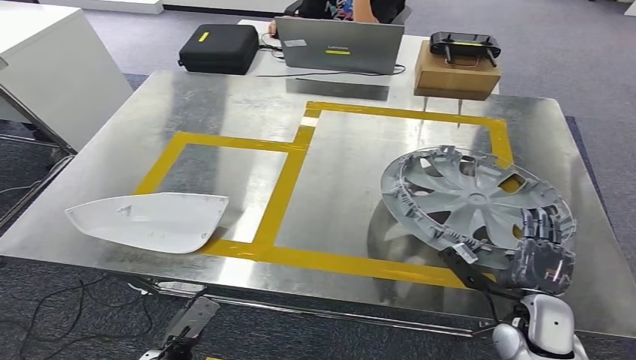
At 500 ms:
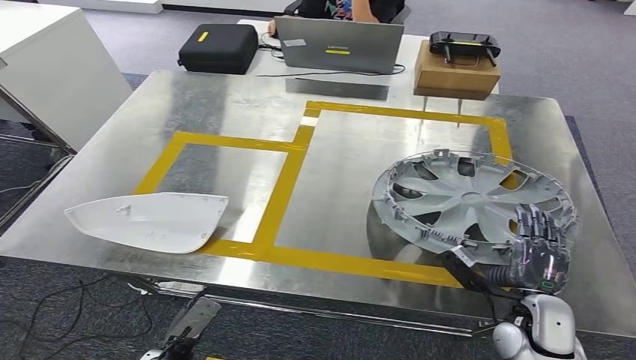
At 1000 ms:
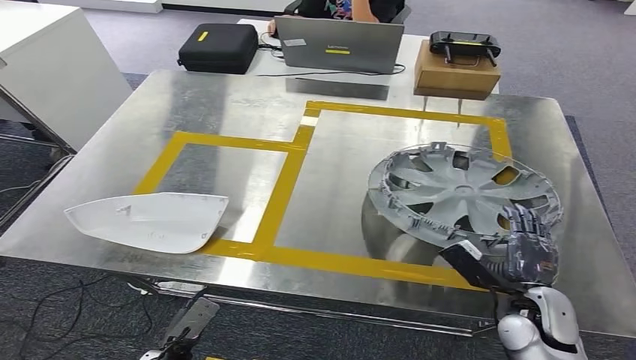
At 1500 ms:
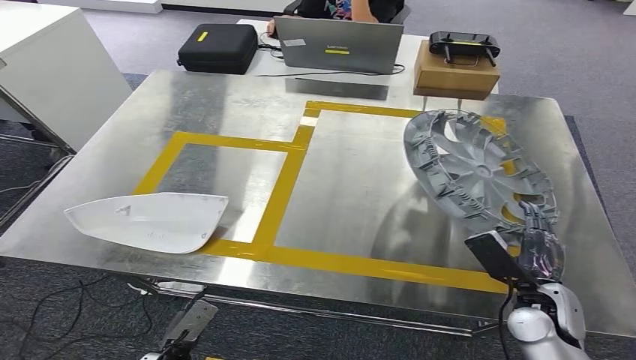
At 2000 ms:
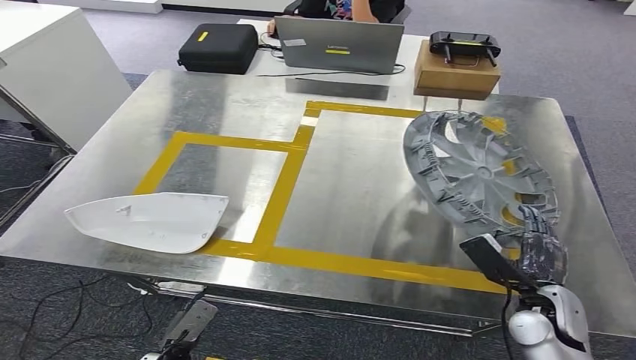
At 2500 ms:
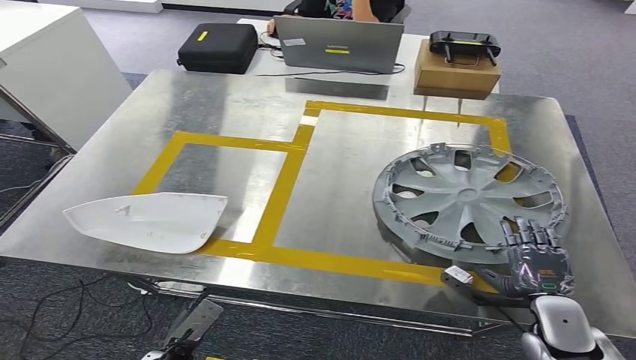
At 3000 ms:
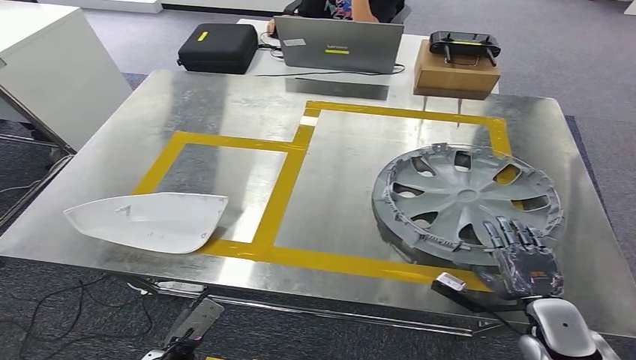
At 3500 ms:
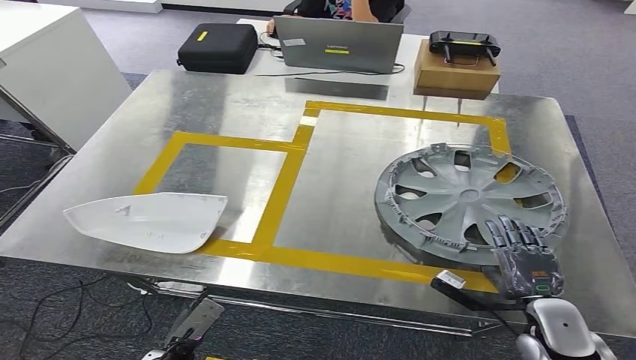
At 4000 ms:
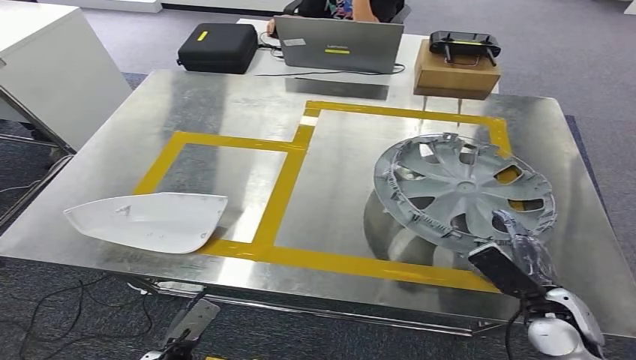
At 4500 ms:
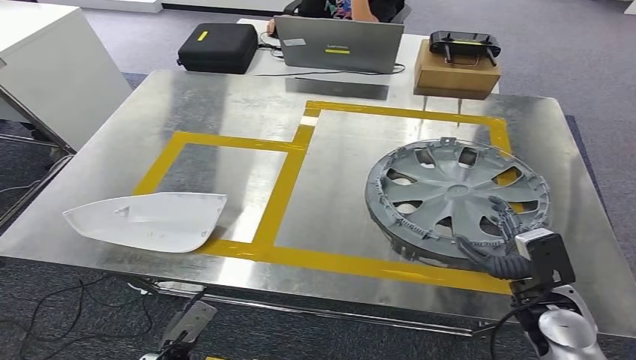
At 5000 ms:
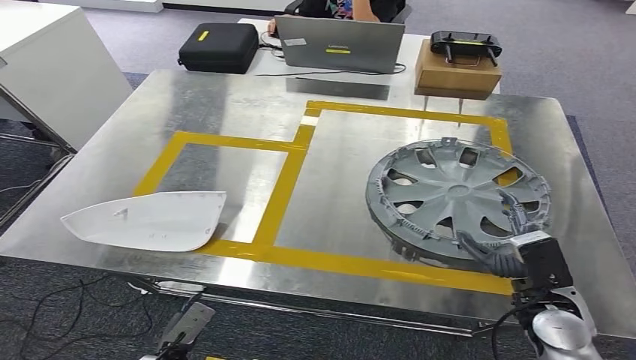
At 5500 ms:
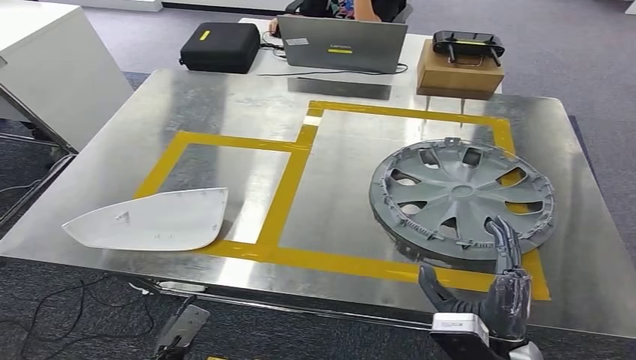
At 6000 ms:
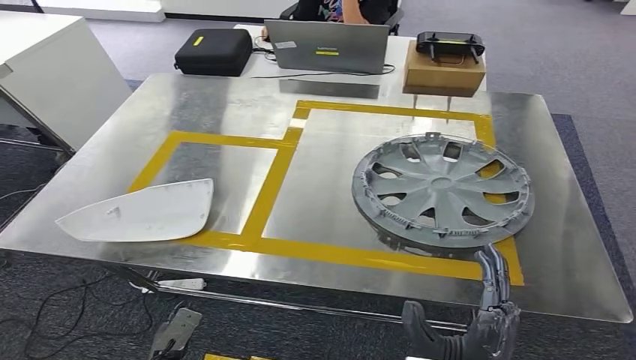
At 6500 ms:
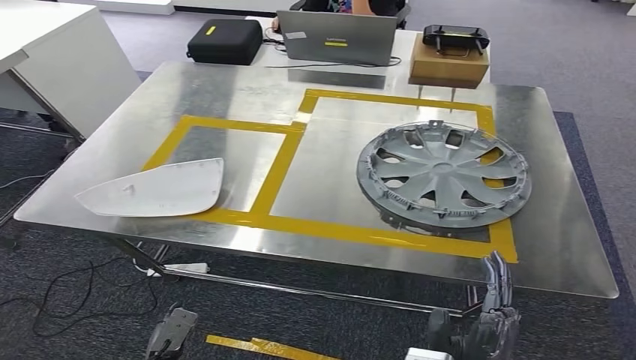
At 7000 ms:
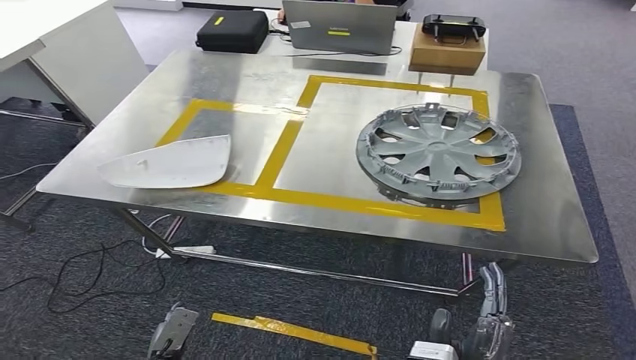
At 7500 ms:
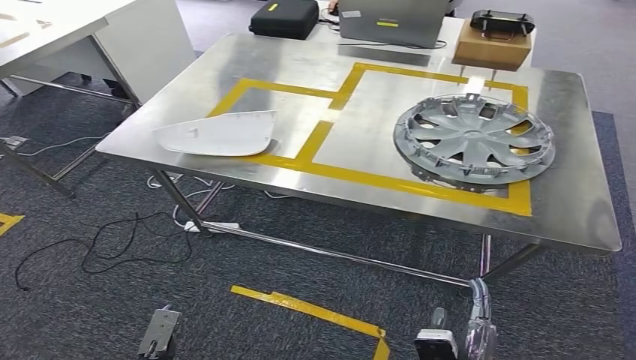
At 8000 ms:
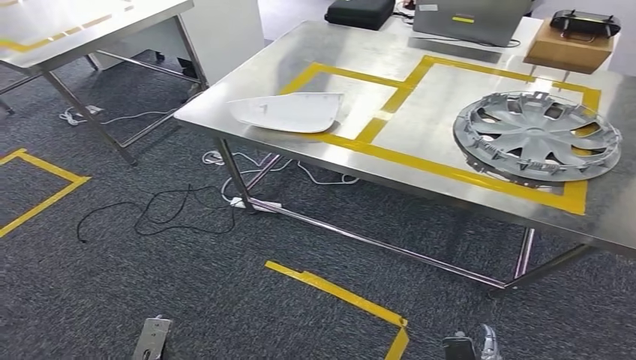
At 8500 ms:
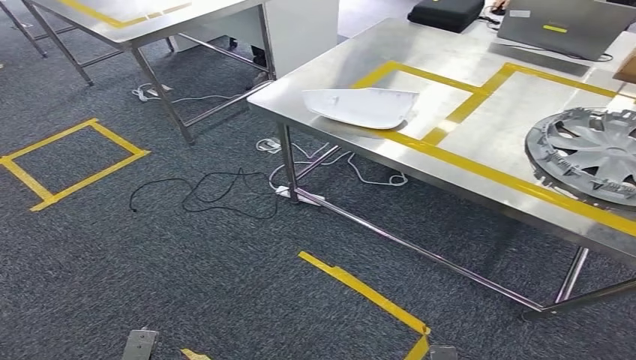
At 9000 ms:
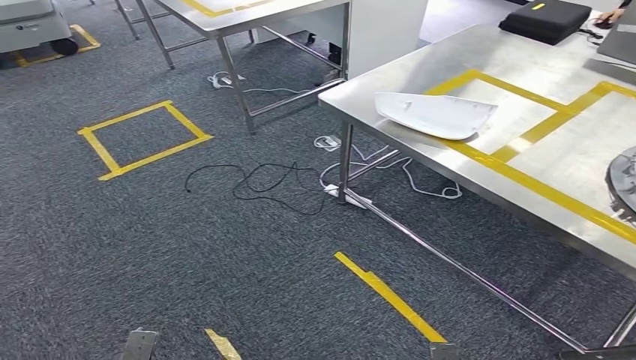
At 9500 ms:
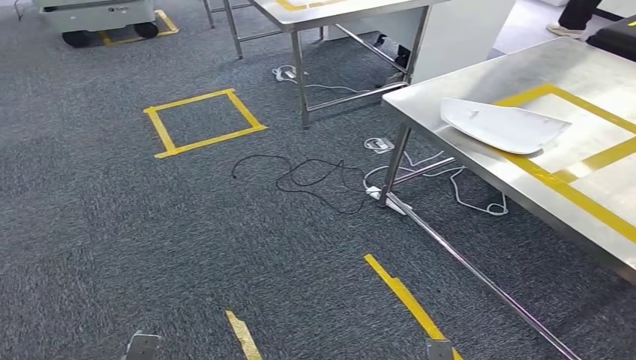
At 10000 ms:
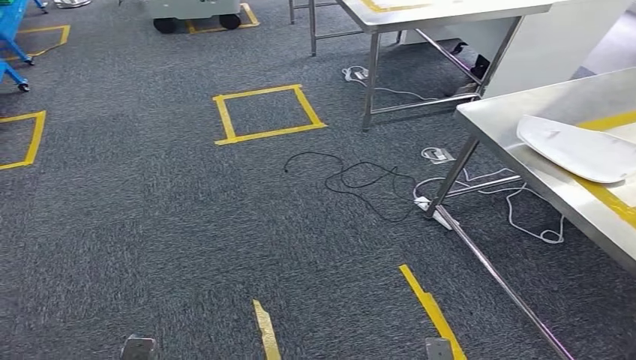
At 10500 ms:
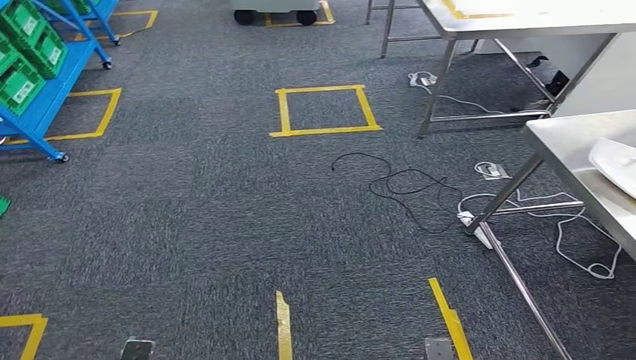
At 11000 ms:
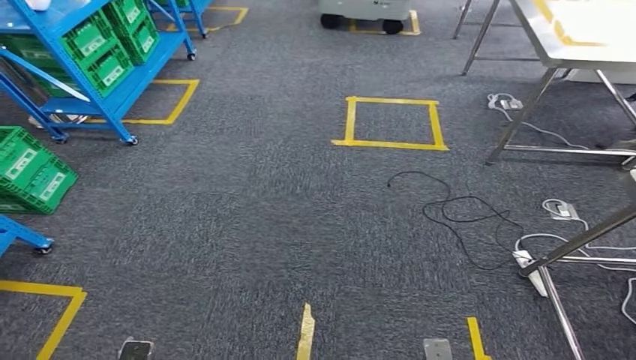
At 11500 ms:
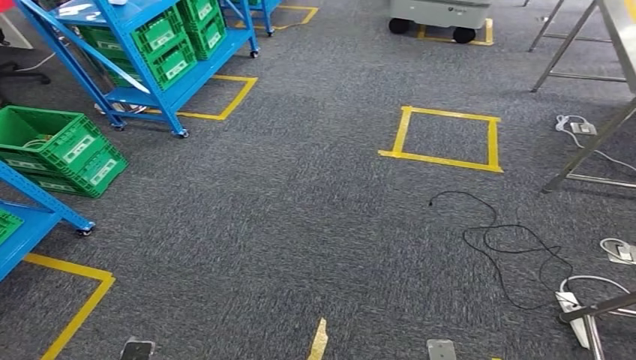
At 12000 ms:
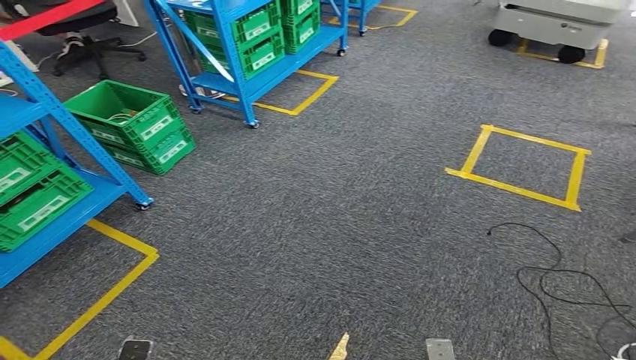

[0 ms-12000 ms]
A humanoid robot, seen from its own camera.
Step, 0 ms to 5500 ms: Insert the small component into the corresponding slot on the workbench.

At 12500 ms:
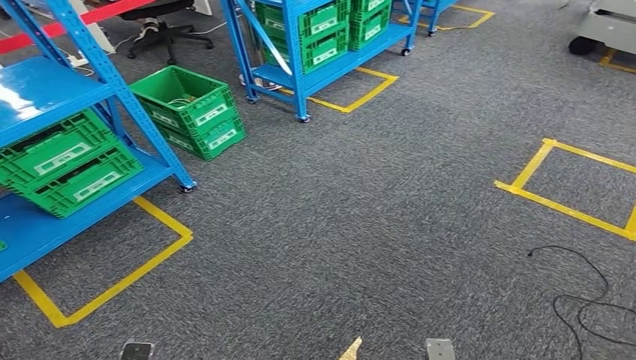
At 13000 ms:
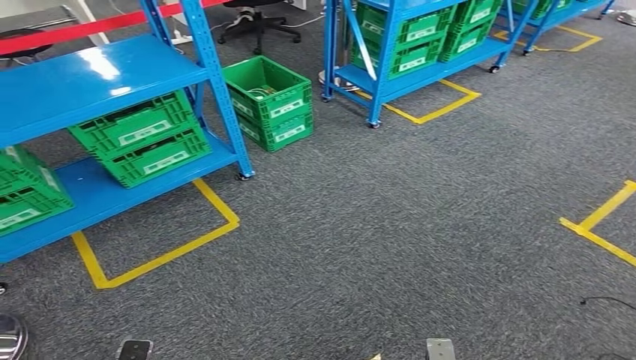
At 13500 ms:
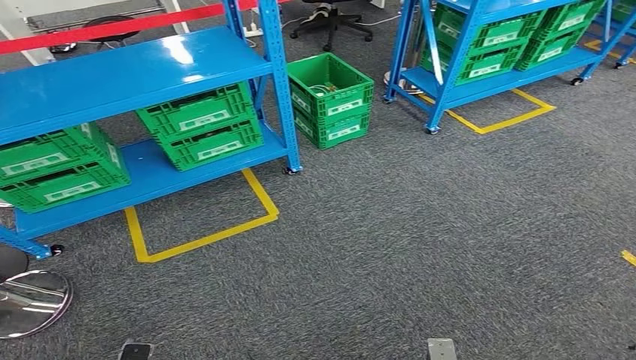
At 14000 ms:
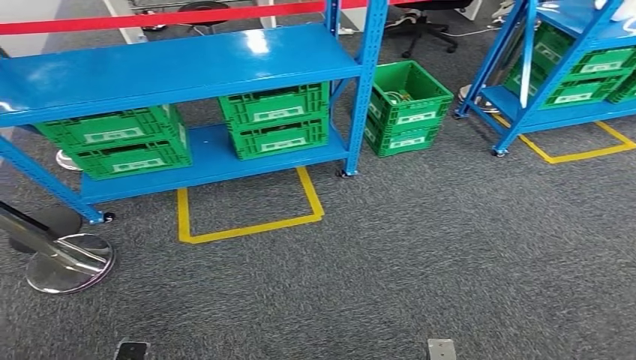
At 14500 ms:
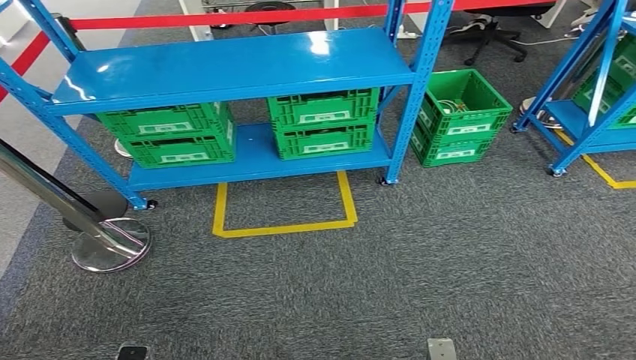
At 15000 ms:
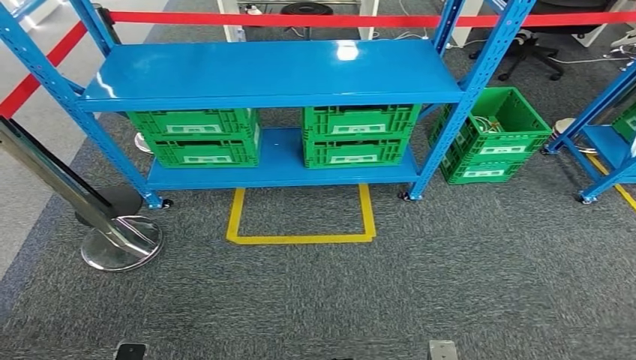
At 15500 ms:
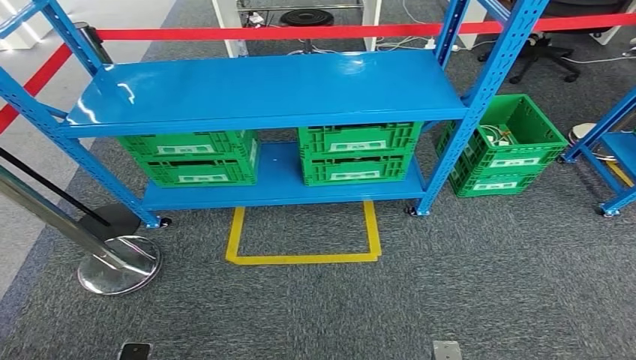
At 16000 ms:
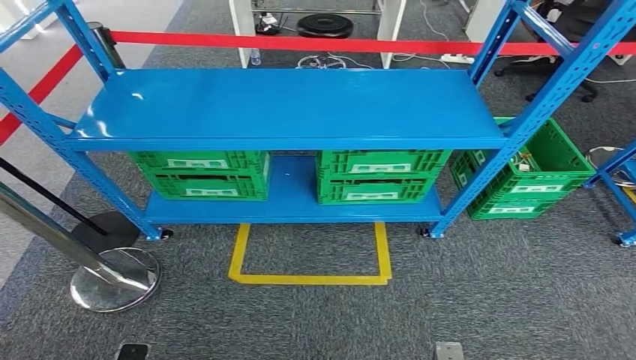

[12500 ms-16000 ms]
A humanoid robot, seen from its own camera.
Step, 12500 ms to 16000 ms: Return to the initial position at the workbench.

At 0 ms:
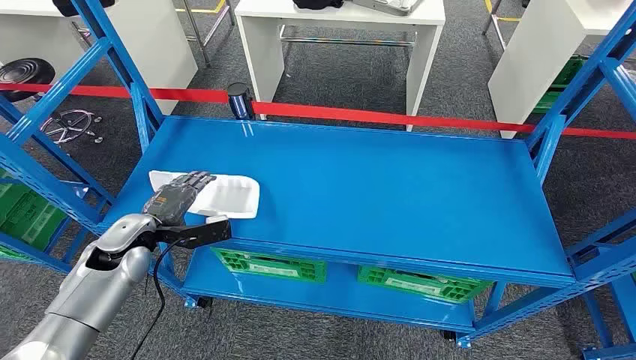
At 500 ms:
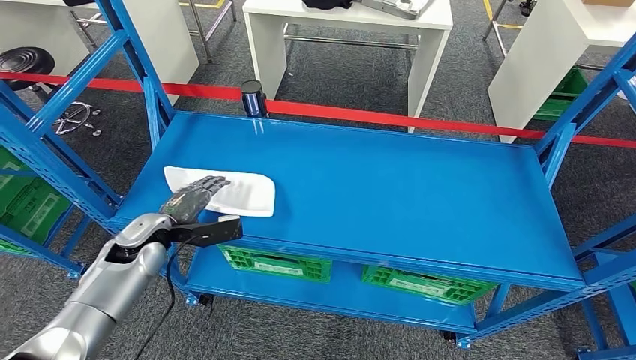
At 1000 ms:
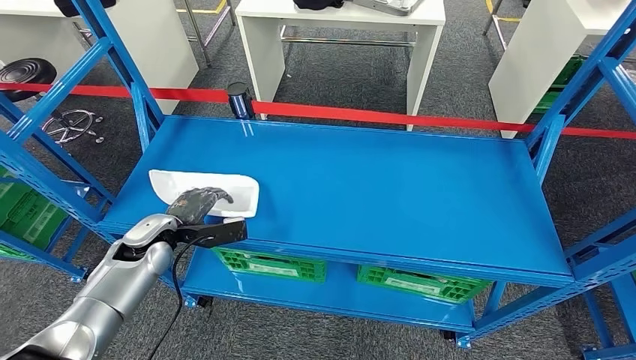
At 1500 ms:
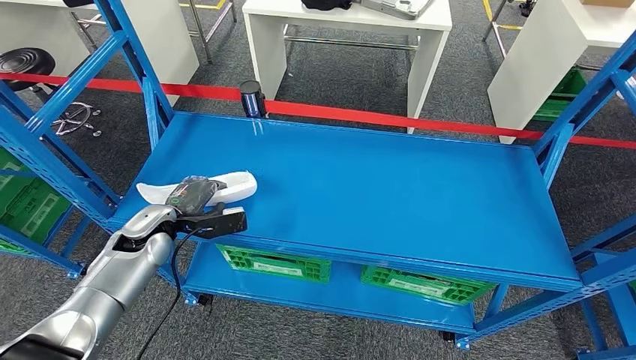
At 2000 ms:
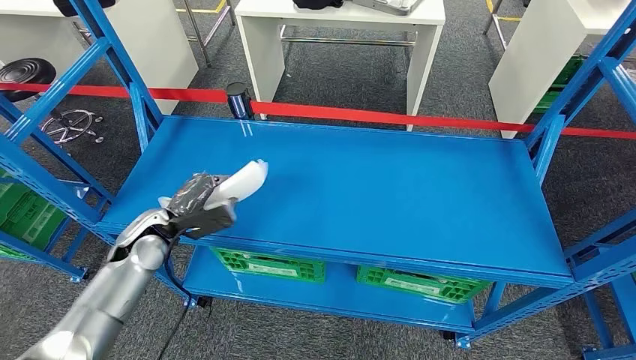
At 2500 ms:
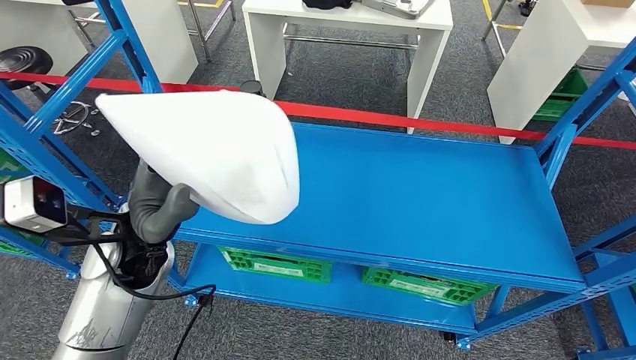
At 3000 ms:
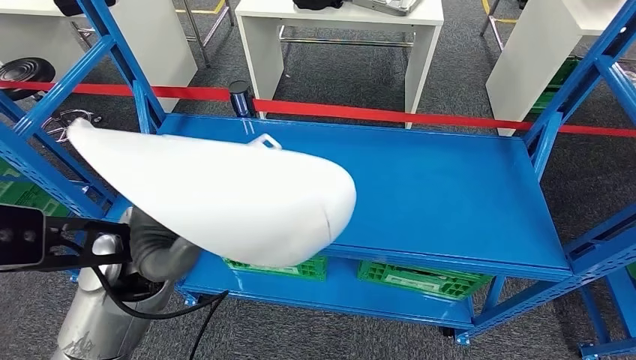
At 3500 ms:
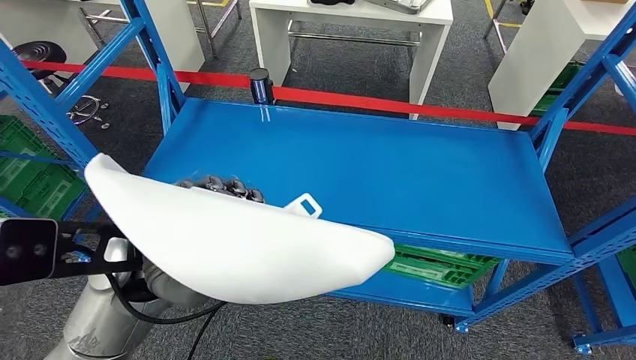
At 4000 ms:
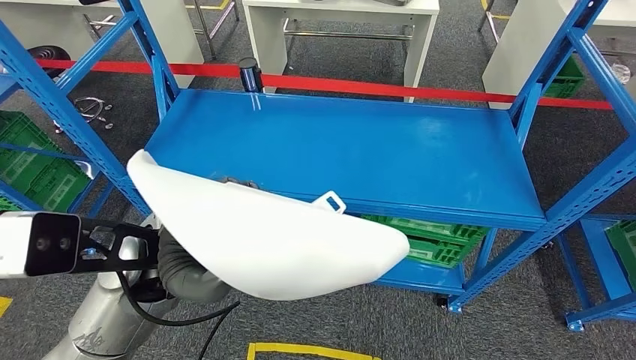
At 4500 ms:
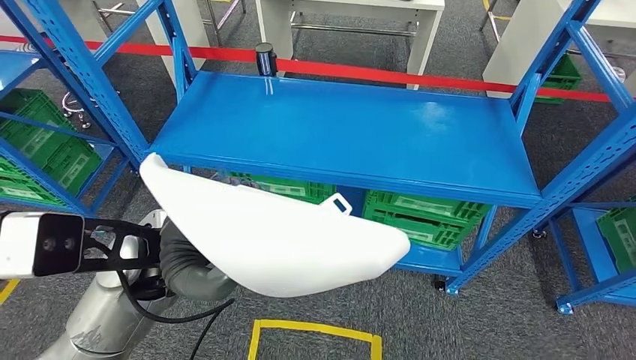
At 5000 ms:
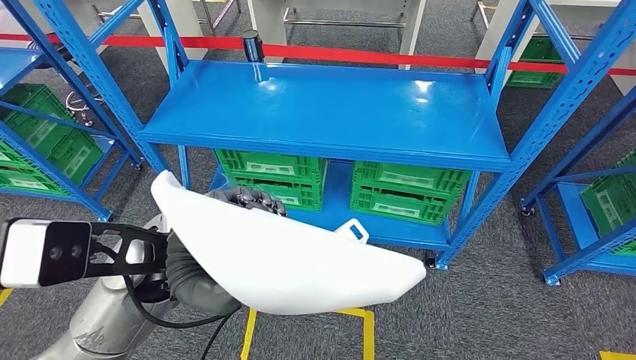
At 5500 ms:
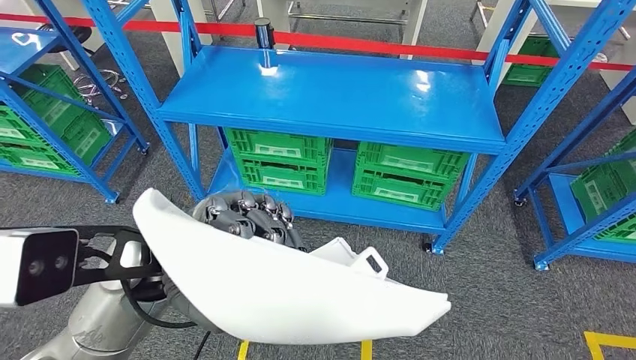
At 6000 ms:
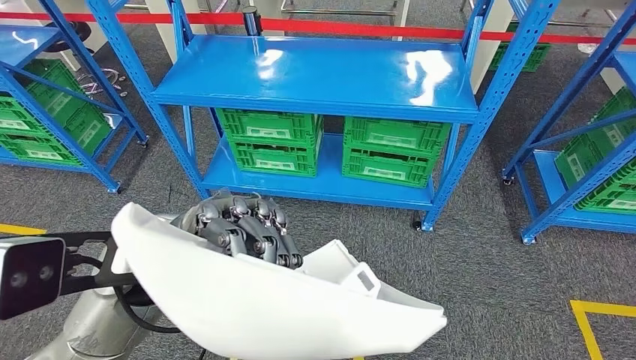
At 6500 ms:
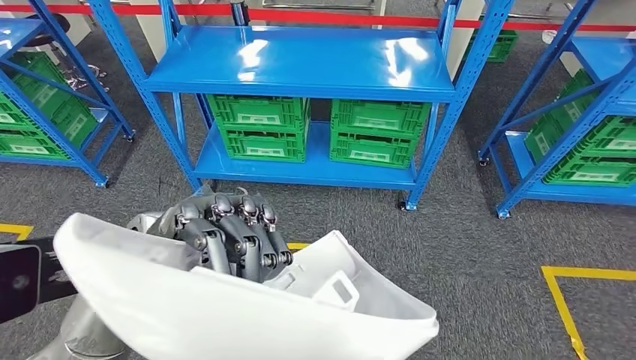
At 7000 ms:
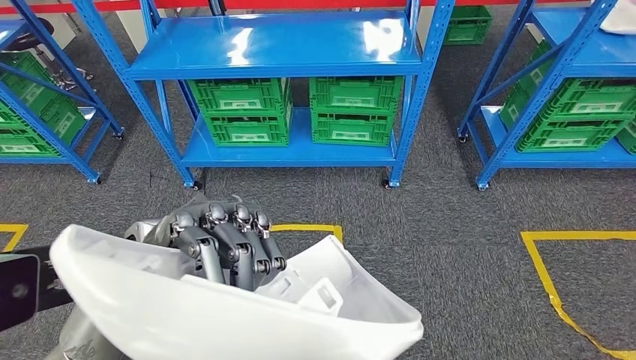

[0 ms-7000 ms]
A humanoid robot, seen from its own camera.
Step, 0 ms to 2000 ms: Pick up the small component from the shelf.
